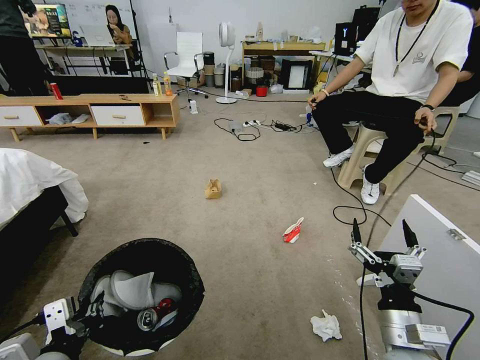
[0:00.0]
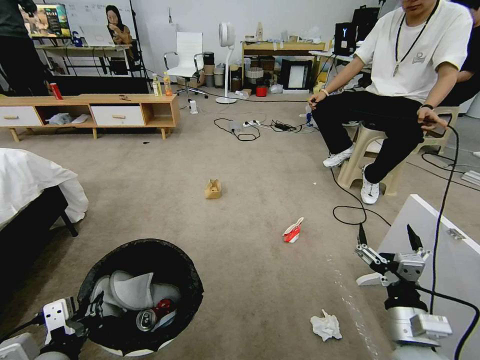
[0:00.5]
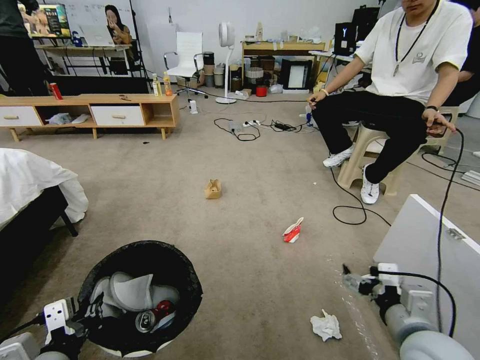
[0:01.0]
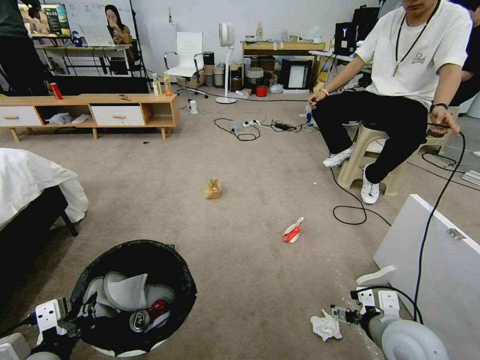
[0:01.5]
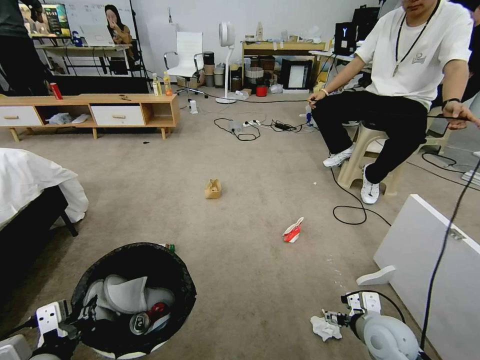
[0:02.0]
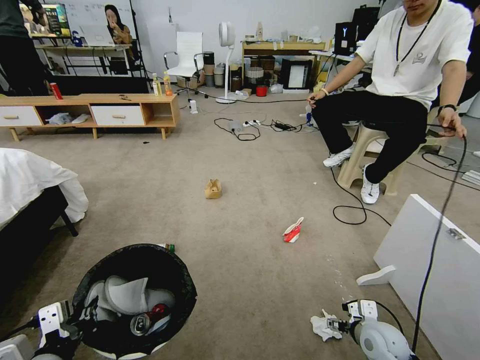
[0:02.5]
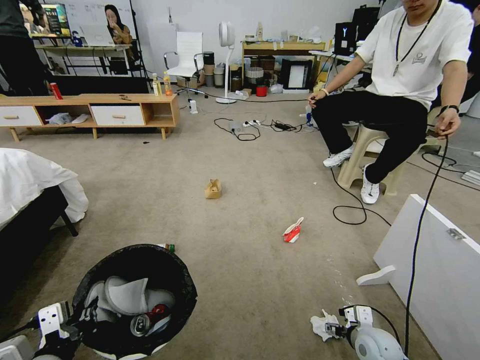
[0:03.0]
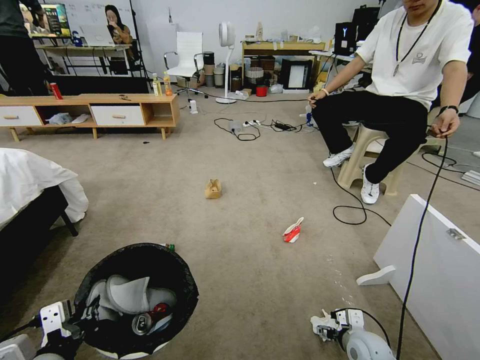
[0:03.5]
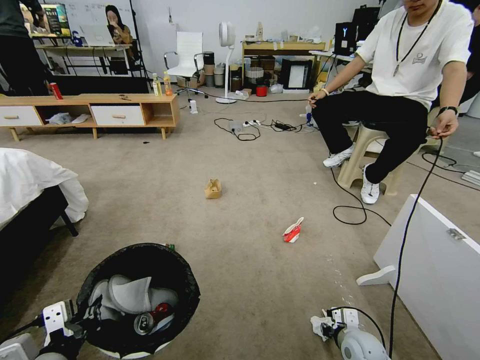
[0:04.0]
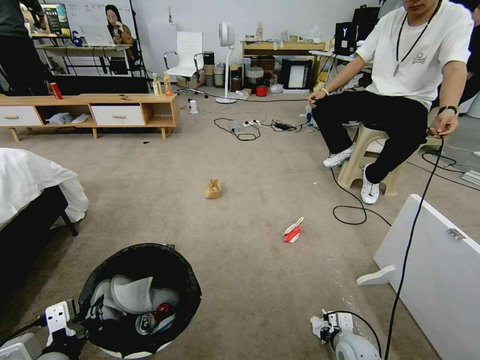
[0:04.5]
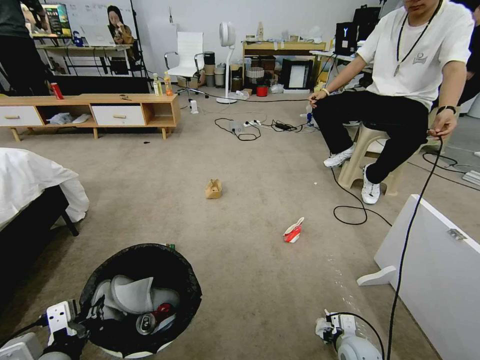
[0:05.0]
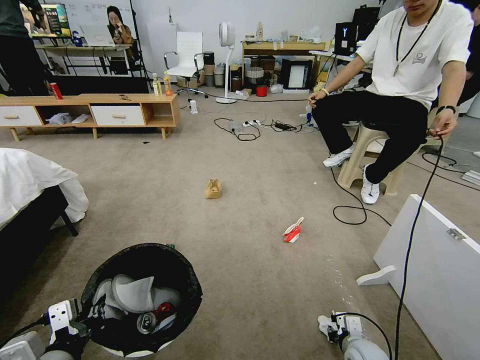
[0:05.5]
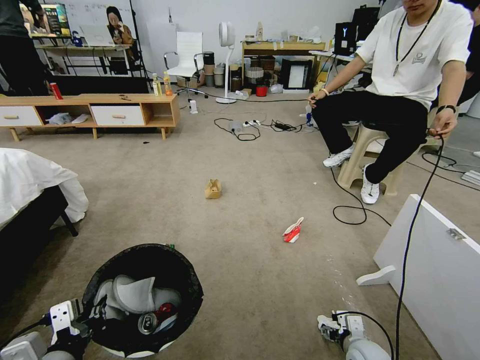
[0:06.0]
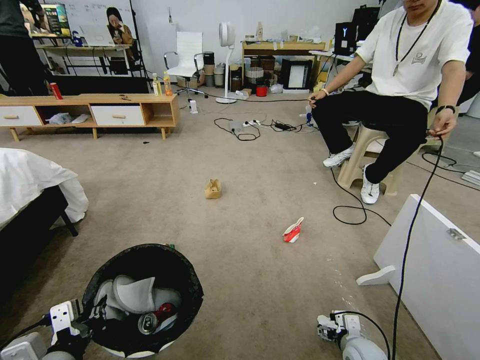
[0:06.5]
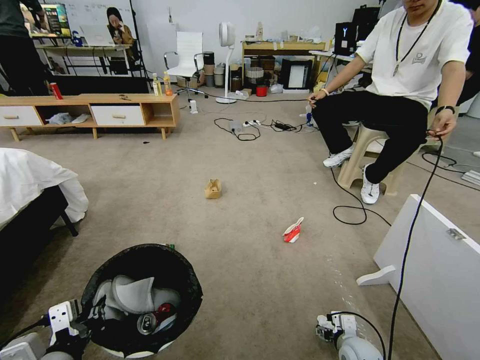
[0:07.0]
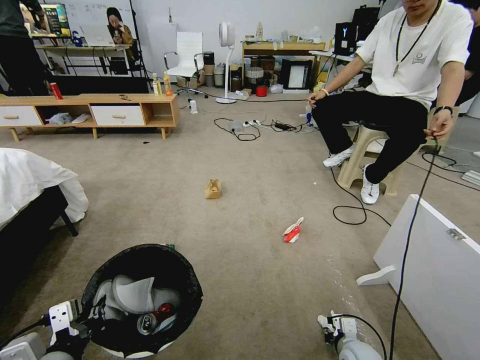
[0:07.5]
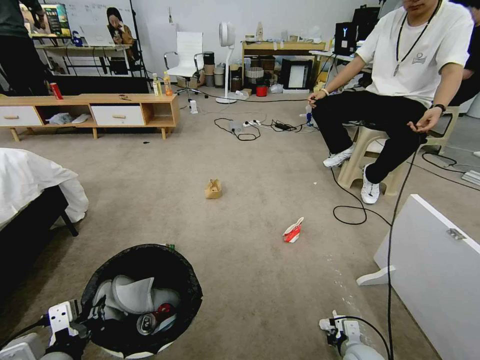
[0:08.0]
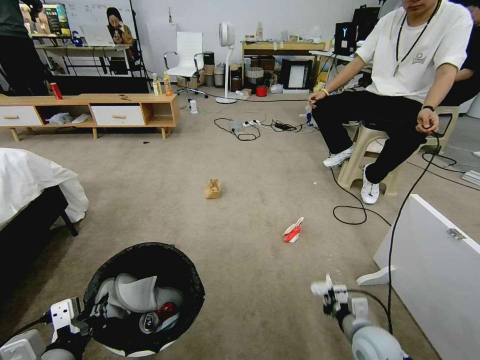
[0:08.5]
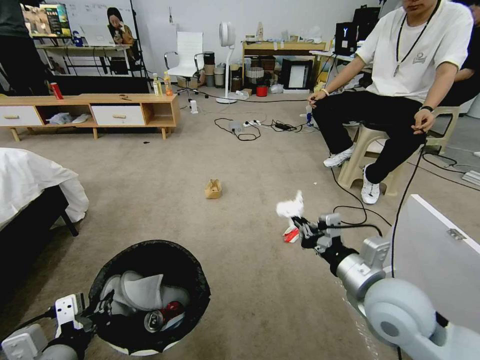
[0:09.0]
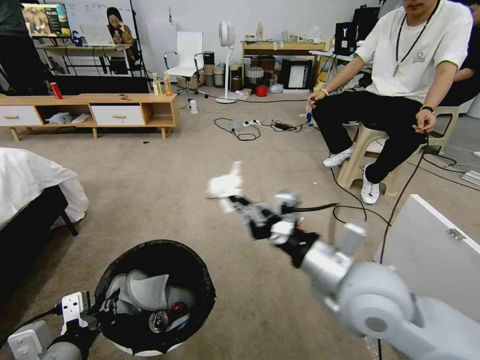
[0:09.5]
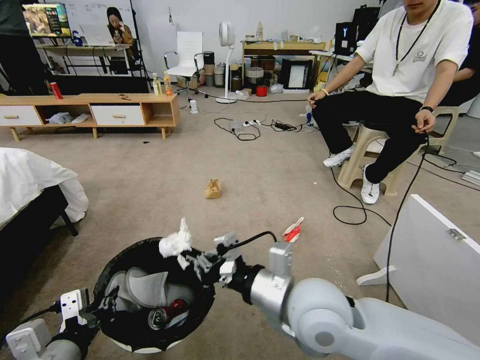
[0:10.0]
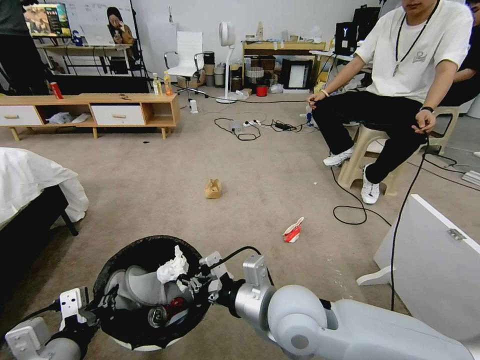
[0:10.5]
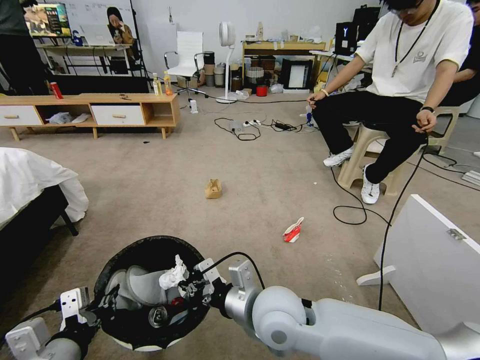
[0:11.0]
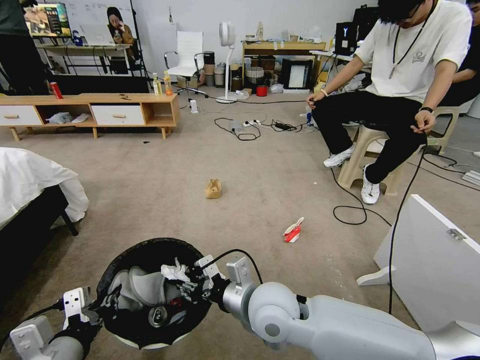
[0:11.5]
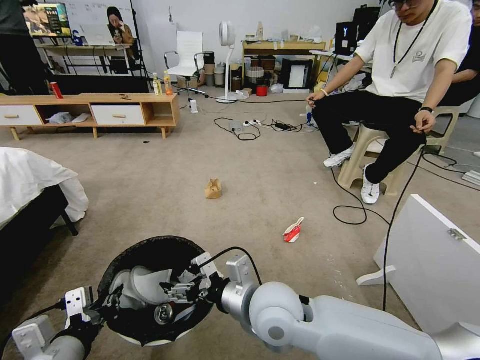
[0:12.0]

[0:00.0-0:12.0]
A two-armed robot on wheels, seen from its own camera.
Task of the whole recording: Pick up the trash bin and place the garbage on the floor into it.
0.0 to 2.0 s: The right gripper is displaced forward and downward by about 10 cm.
2.0 to 4.0 s: The right gripper heads downward, covering roughly 10 cm, and closes up.
4.0 to 6.0 s: The right gripper opens its fingers.
6.0 to 8.0 s: The right gripper closes up.
8.0 to 10.0 s: The right gripper goes about 40 cm upward and to the left.
10.0 to 12.0 s: The right gripper is displaced to the left and downward by roughly 5 cm, and opens its fingers.

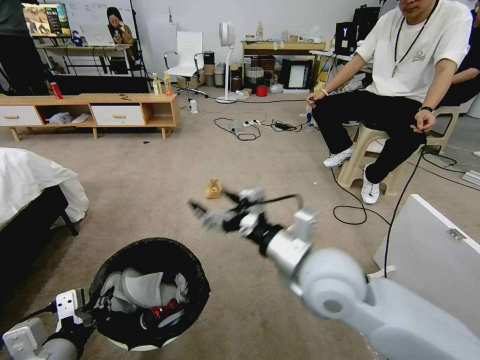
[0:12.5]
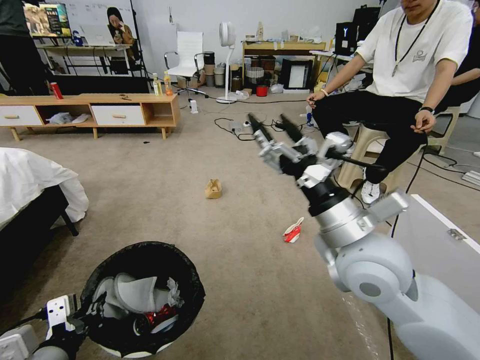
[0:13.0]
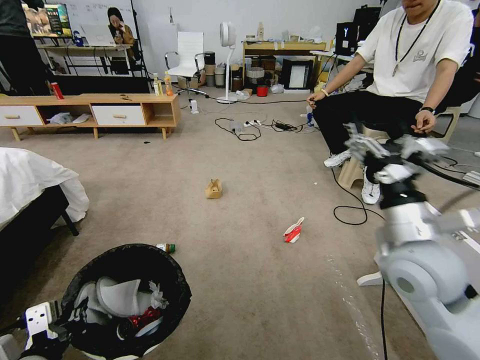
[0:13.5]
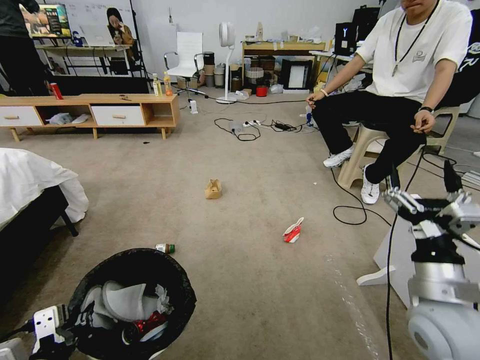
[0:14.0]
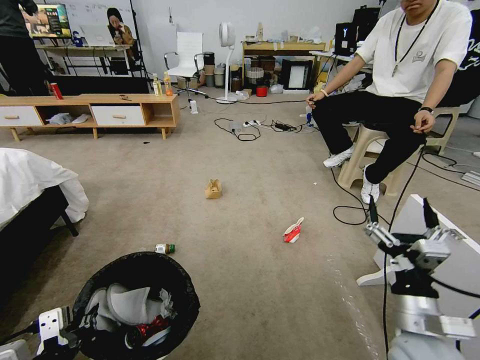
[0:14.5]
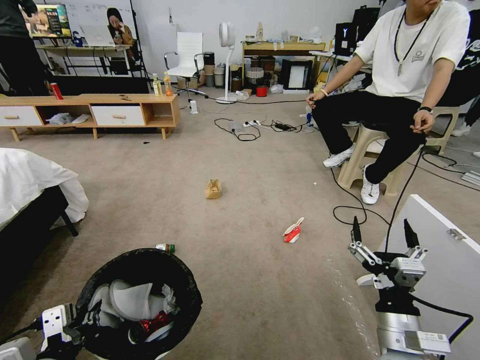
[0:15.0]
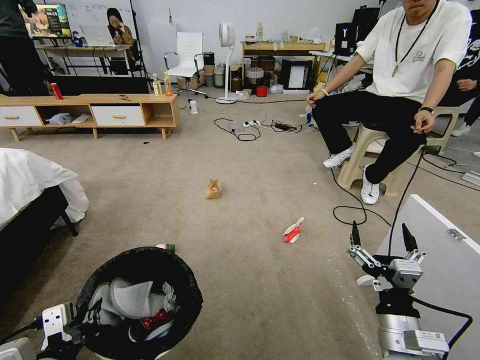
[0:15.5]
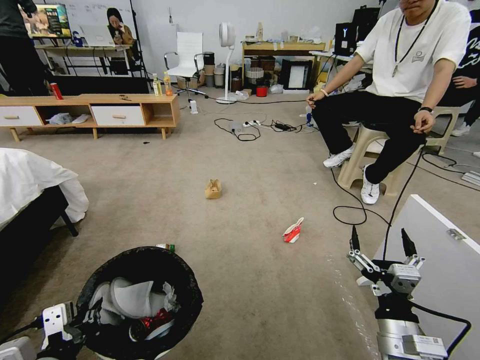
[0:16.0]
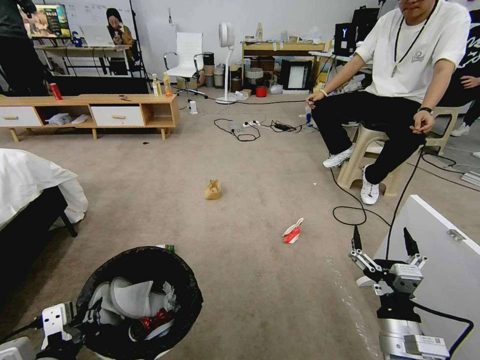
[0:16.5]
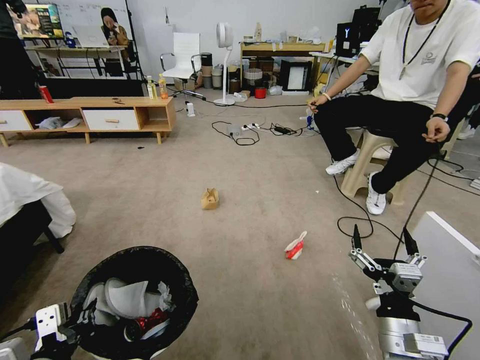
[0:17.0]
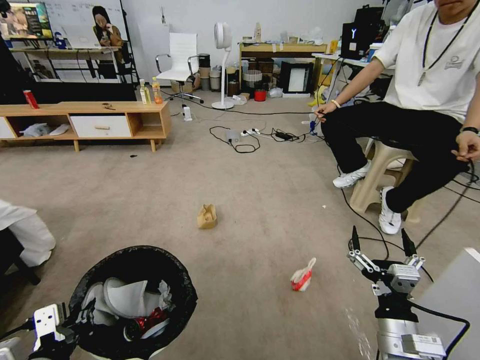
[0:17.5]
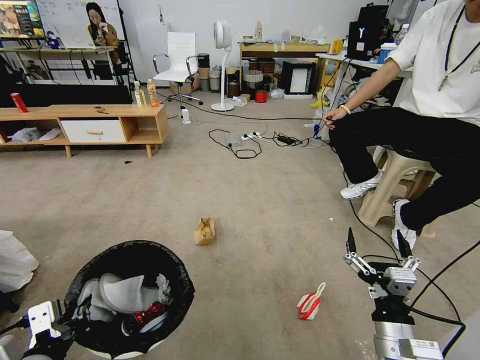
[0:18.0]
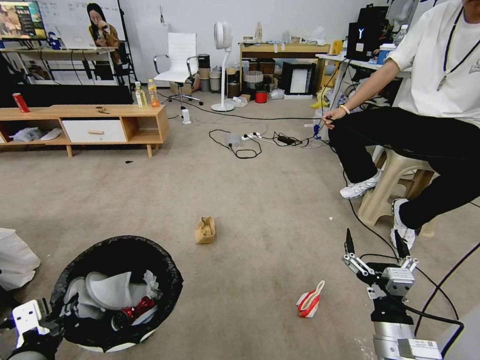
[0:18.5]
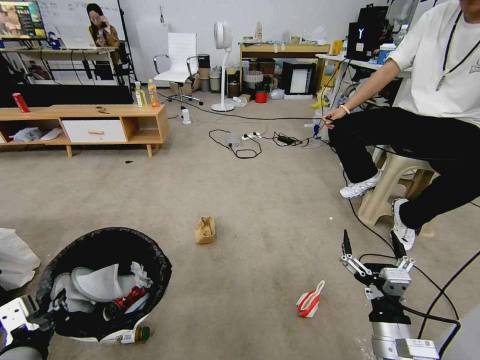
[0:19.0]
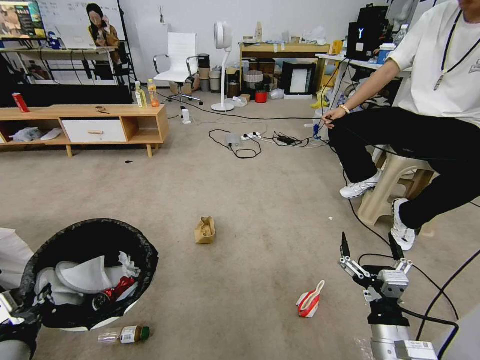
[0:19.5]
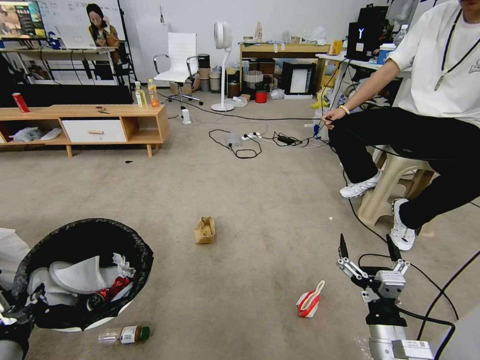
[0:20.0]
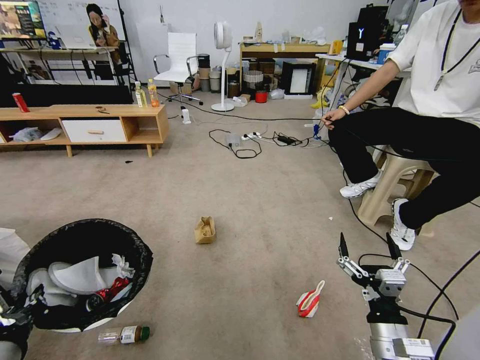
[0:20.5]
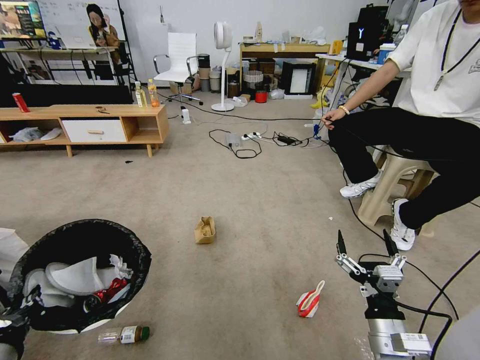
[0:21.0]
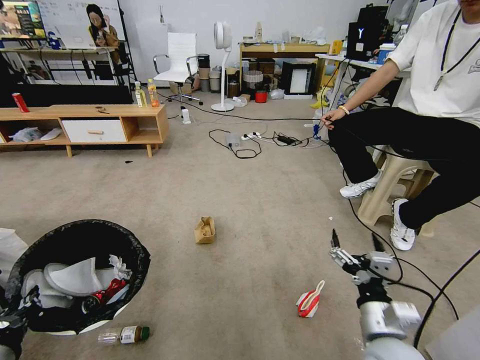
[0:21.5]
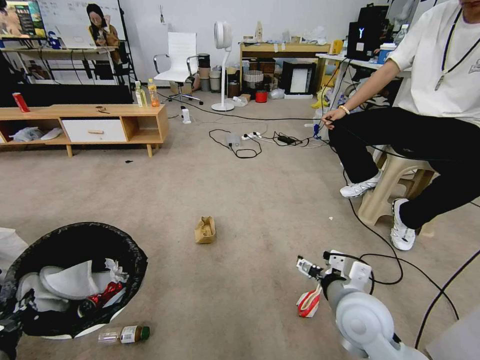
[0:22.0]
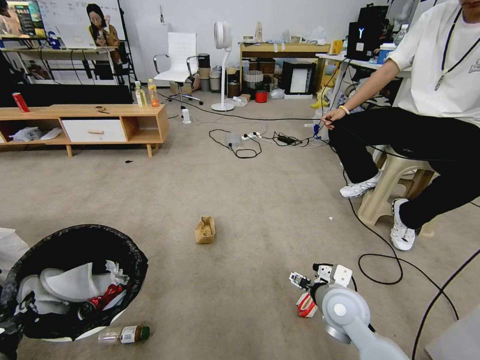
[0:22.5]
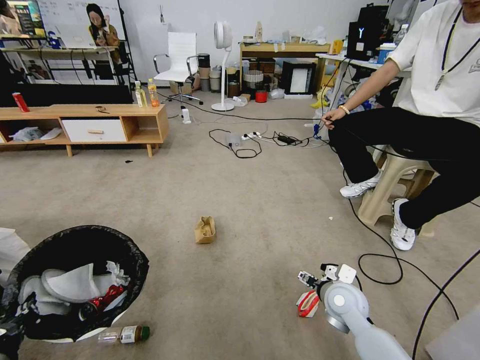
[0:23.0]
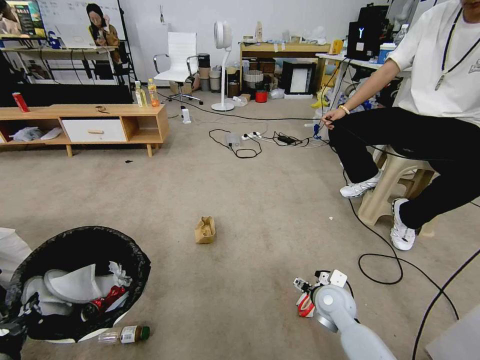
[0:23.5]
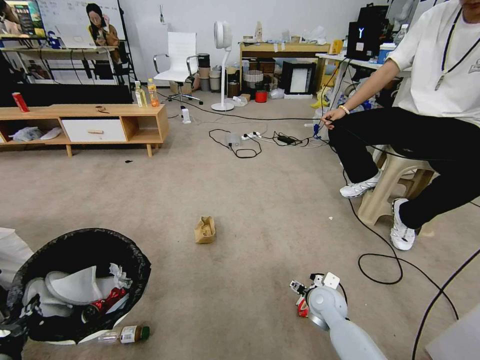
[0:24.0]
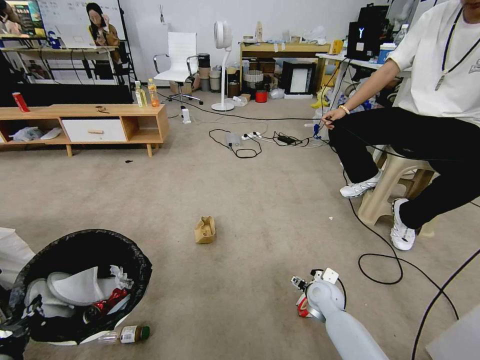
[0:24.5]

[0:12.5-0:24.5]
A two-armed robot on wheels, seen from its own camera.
Task of the whole recording: Pick up the trash bin and place the garbage on the floor into it.
12.5 to 14.5 s: The right gripper travels to the right, downward and backward by approximately 20 cm.
14.5 to 16.5 s: The right gripper moves about 5 cm.
18.5 to 20.5 s: The grippers stay close to where they were, moving slightly.
20.5 to 22.5 s: The right gripper moves forward, approximately 15 cm.
22.5 to 24.5 s: The right gripper is displaced downward and forward by roughly 15 cm.

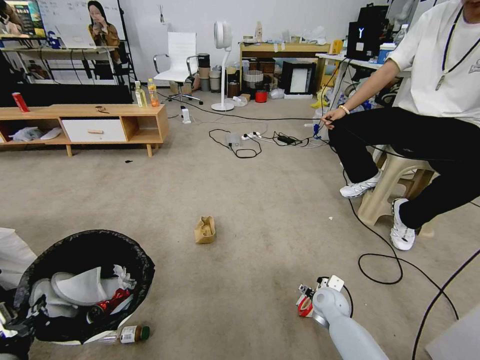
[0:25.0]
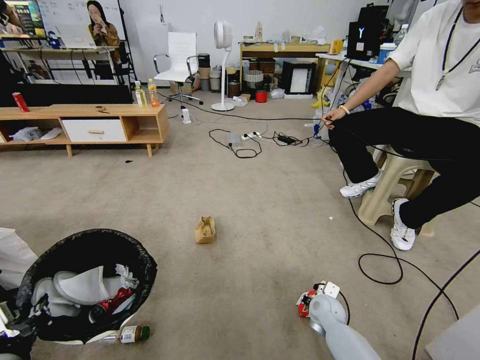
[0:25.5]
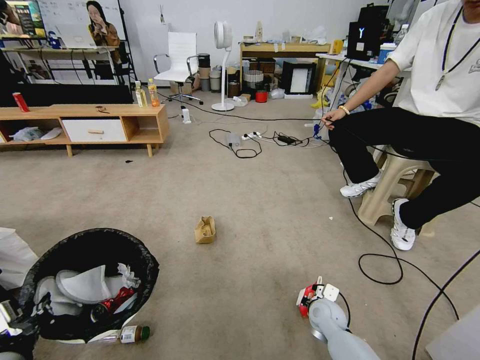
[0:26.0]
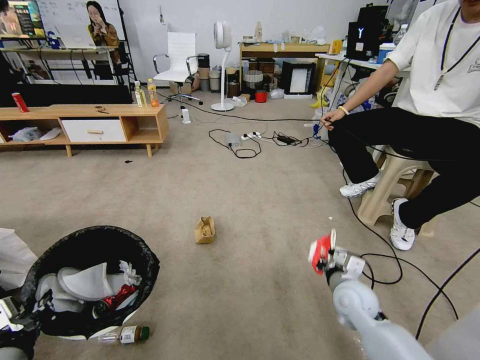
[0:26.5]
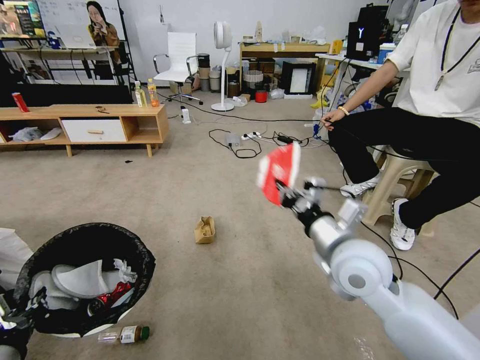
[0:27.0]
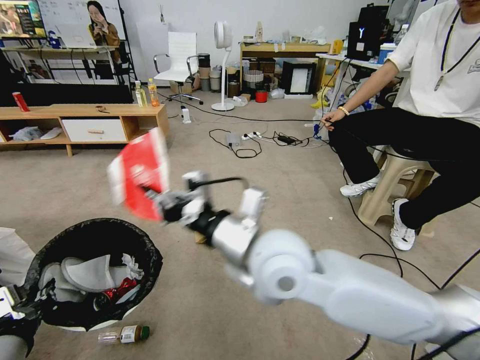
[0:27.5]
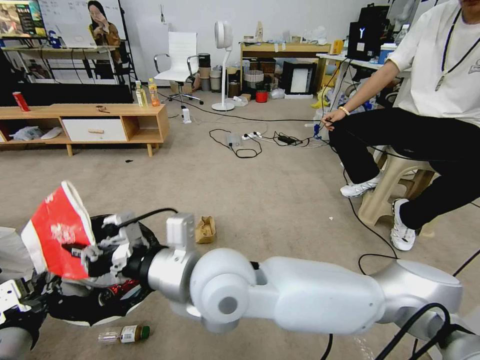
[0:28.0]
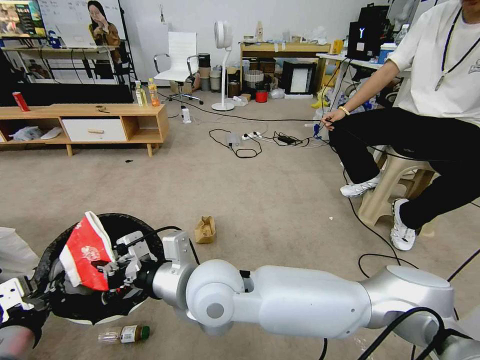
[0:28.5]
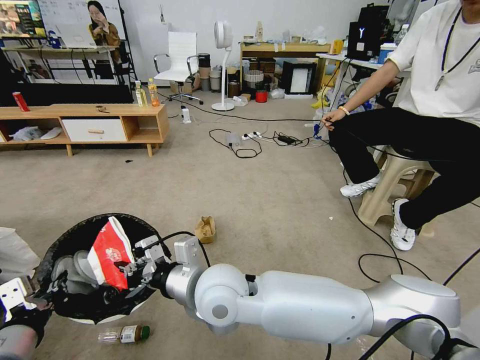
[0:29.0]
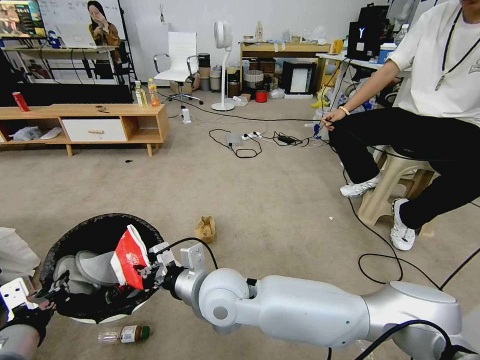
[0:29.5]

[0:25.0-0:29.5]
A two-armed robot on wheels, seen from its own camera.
Task of the whole recording: Pick up the trash bin and place the garbage on the floor into it.
25.0 to 27.0 s: The right gripper is displaced upward by some 30 cm, and closes up.
27.0 to 29.5 s: The right gripper is displaced to the left by roughly 25 cm.
